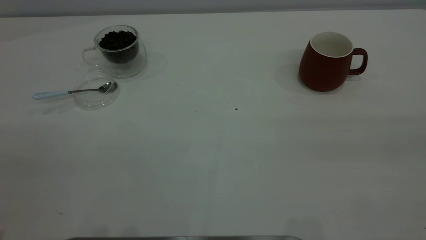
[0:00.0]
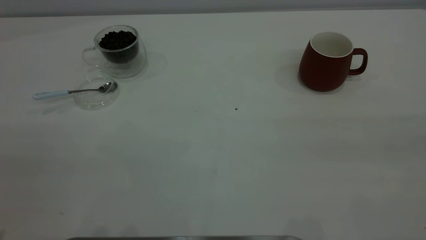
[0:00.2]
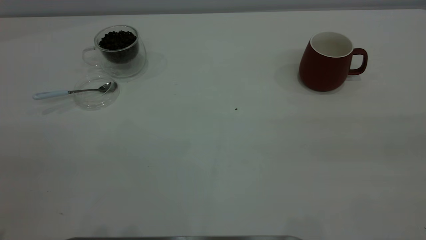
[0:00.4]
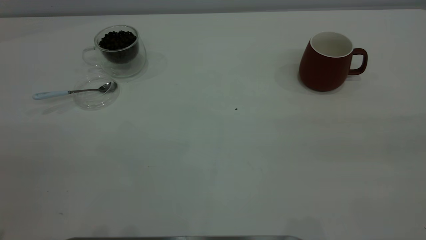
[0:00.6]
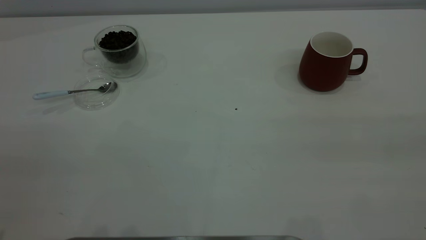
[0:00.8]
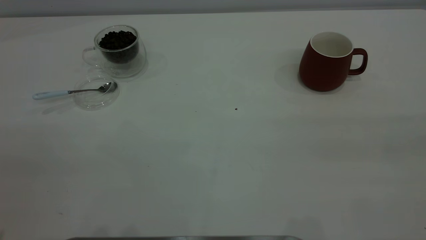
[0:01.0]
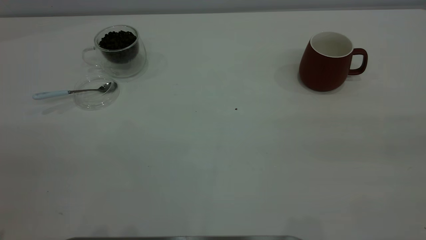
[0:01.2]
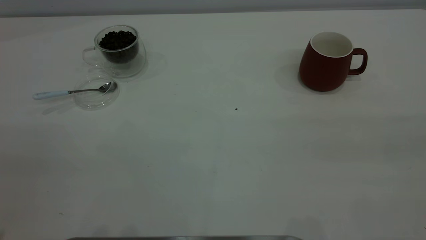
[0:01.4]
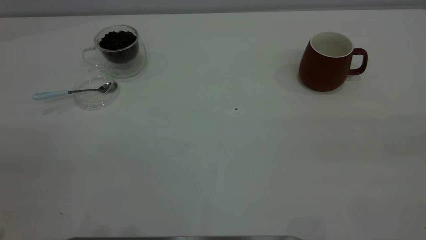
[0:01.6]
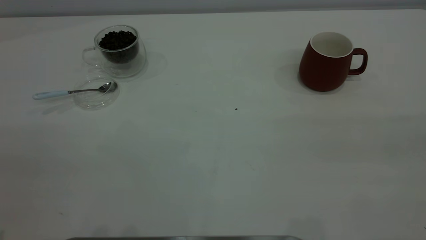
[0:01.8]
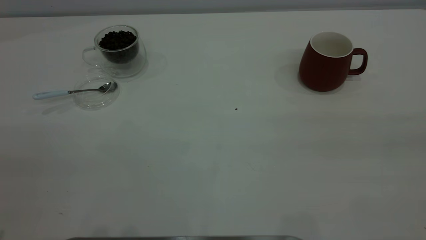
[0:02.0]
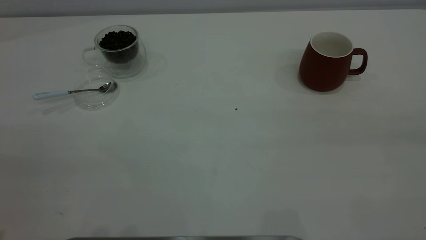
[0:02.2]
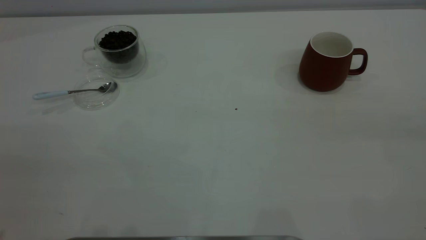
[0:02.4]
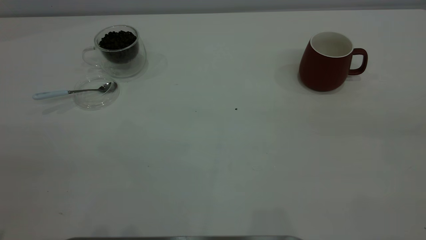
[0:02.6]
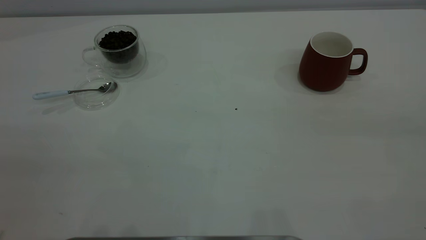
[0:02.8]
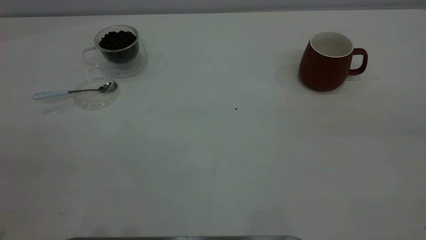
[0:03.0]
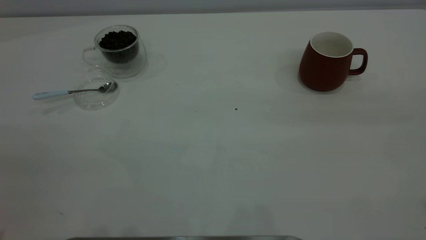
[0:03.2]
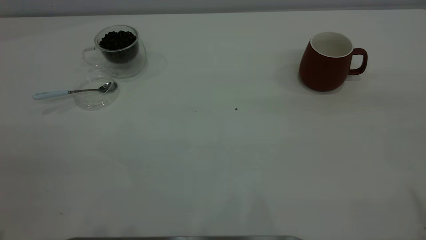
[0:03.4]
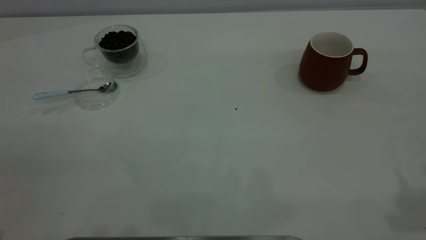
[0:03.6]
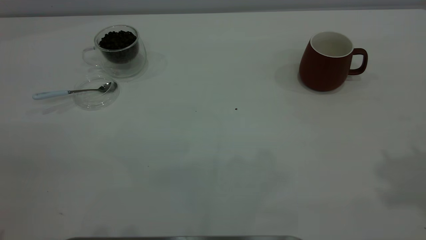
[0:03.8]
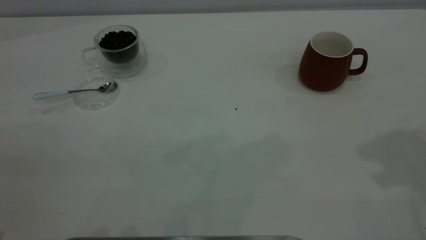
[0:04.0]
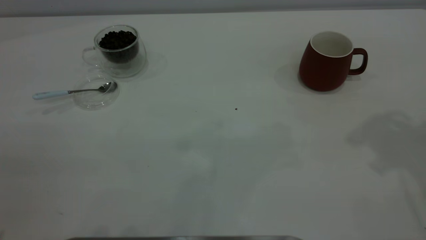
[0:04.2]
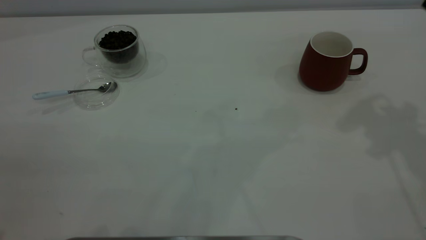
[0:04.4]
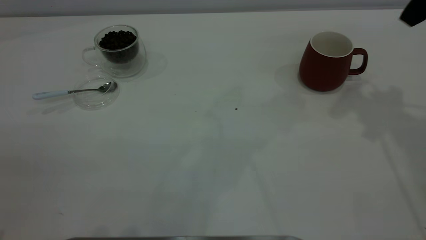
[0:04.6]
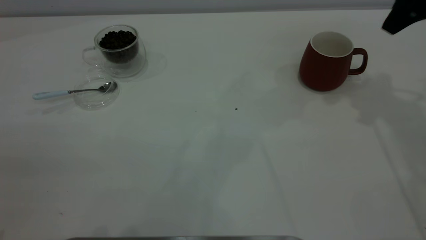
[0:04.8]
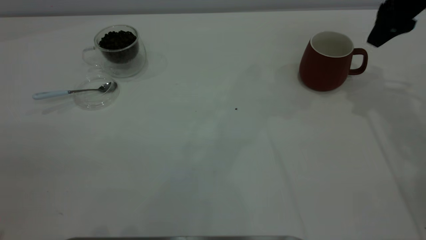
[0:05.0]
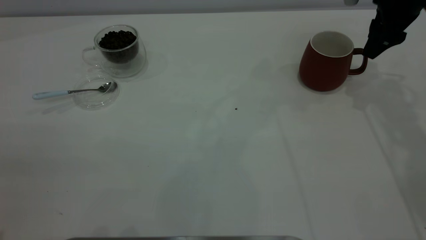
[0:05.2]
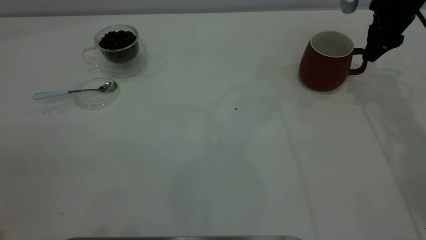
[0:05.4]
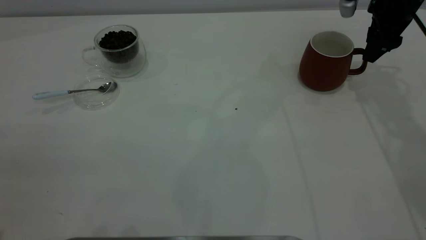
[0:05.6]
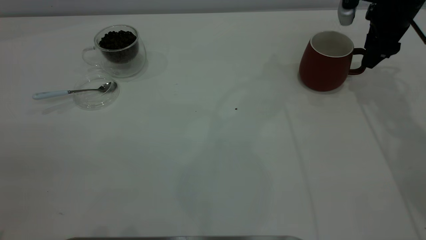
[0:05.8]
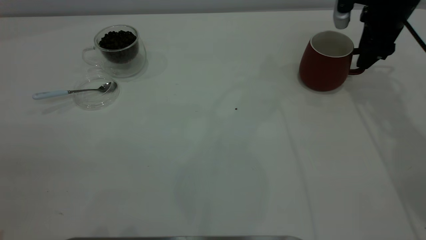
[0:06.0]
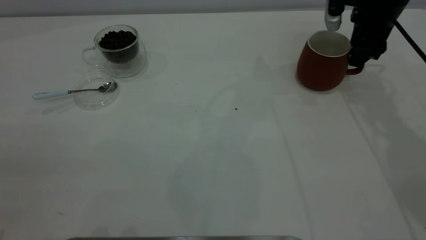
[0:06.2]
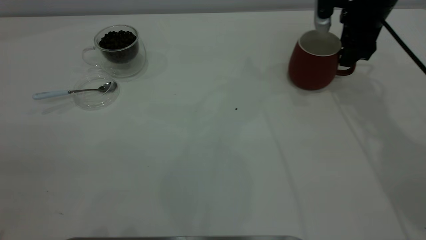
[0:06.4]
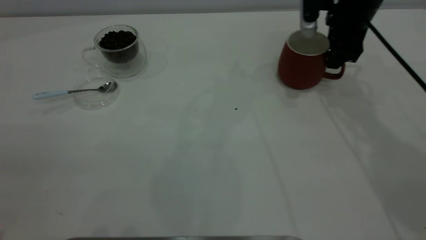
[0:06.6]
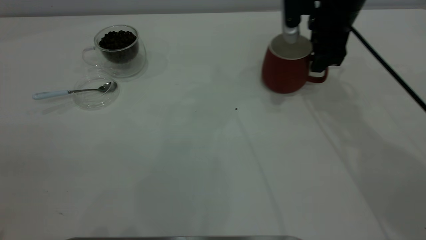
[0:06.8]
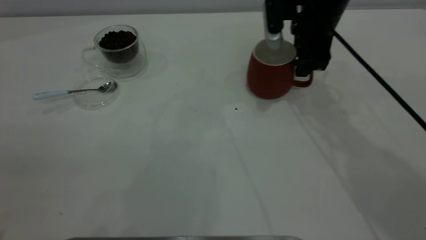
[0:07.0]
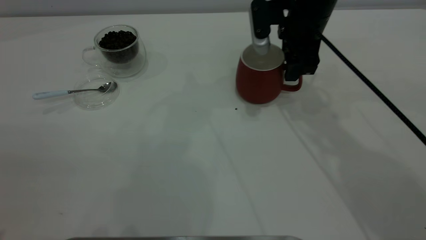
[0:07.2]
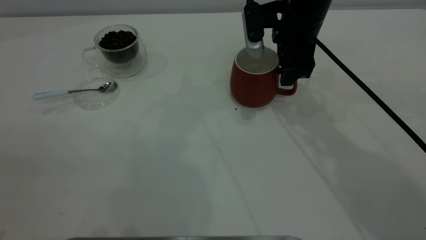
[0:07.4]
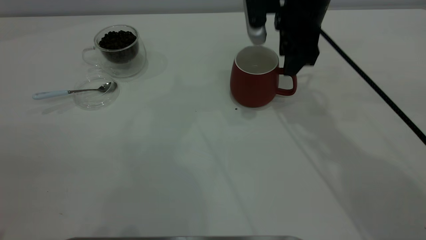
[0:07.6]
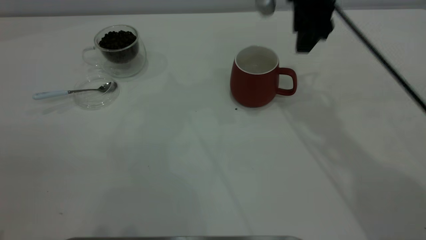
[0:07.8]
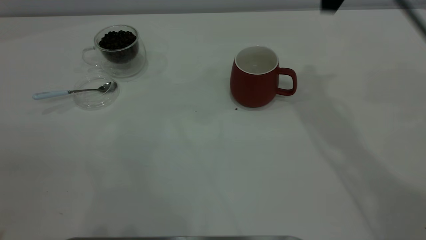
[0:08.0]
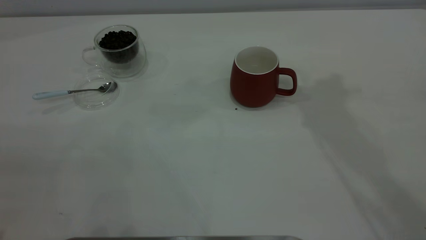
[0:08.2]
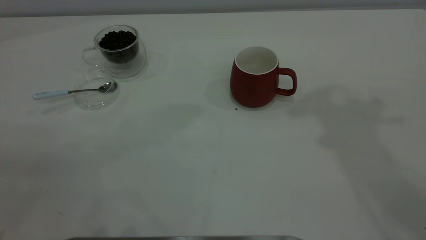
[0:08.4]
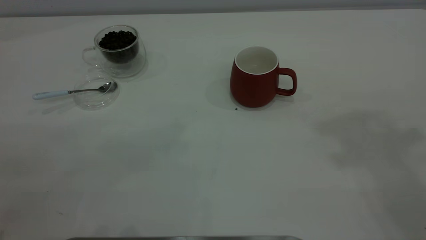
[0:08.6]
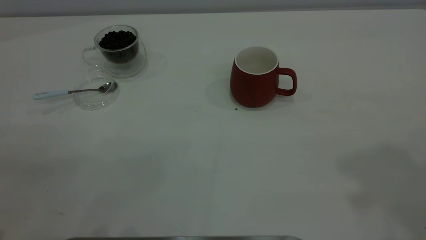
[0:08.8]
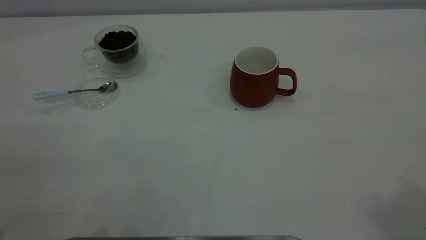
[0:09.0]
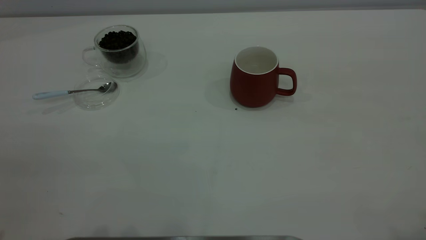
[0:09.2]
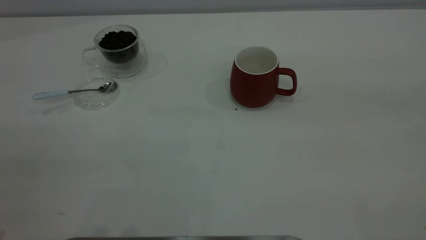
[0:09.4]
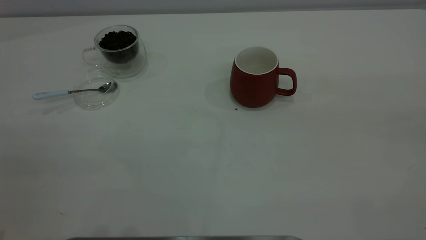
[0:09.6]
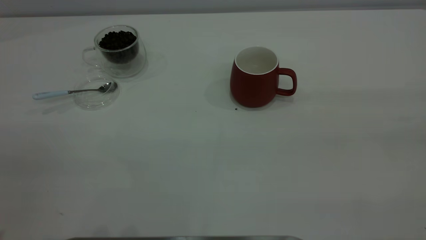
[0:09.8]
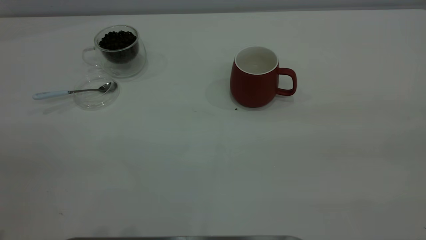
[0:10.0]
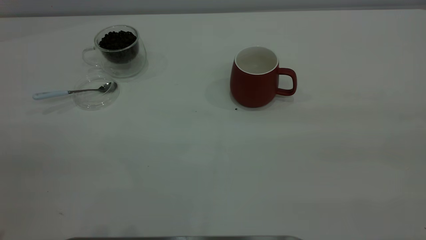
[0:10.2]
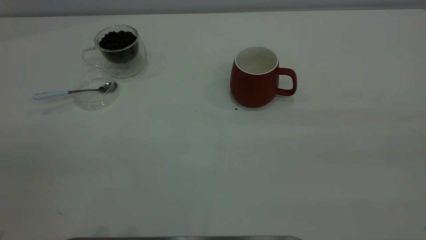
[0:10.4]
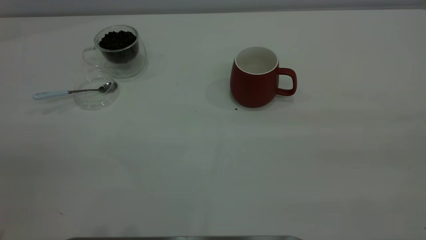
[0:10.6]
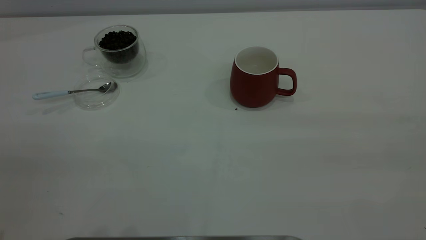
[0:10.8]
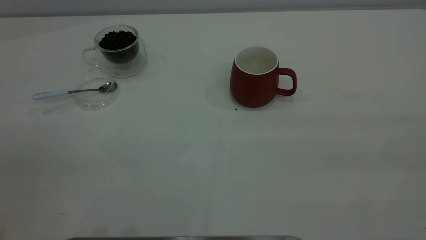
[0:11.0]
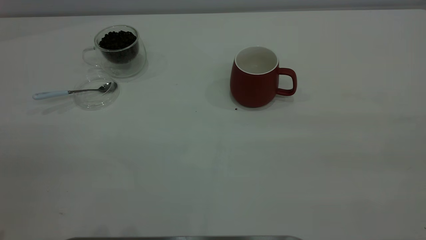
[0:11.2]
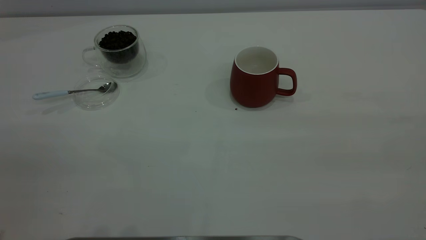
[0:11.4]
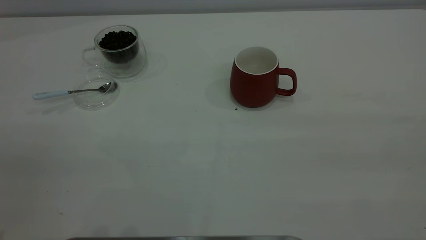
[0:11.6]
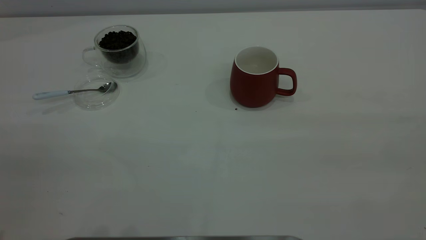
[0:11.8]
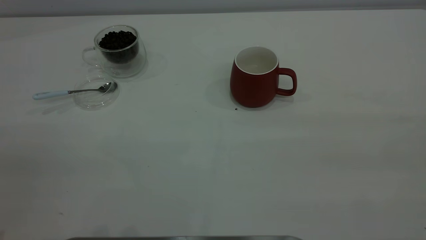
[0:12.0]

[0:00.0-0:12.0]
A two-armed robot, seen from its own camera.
Task of the whole recording: the right gripper place the red cup in the center of the table, the left gripper take the blue spoon from the cup lid and scoop out the coffee beans from the coffee cup and put them into the red cup, the left gripper put the spoon back into the cup lid.
Step, 0.0 to 7.6 s: Move the cup to the center of view.
0.0 to 1.6 s: Neither gripper changes place.
4.4 to 6.0 s: The right gripper moves downward and forward, roughly 20 cm.
6.0 to 7.6 s: The right gripper goes some 15 cm to the left.
7.6 to 9.0 s: The right gripper goes some 50 cm upward and backward.
10.4 to 12.0 s: Both grippers stay about where they are.

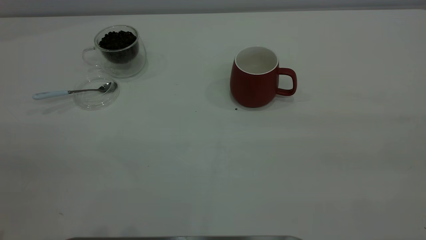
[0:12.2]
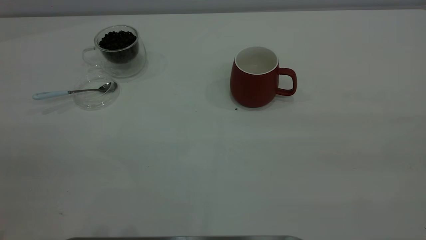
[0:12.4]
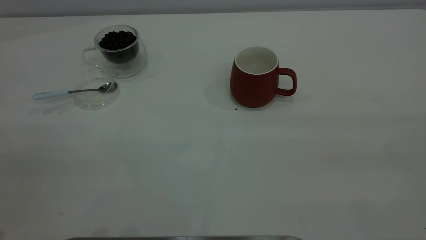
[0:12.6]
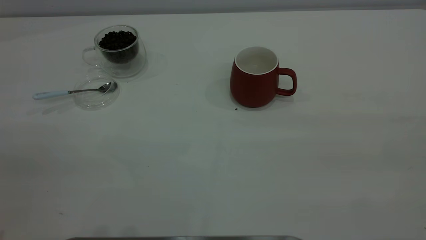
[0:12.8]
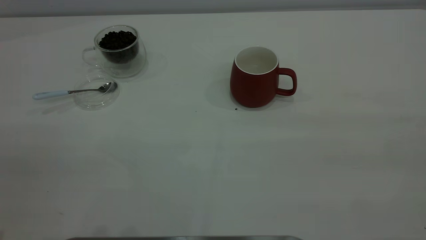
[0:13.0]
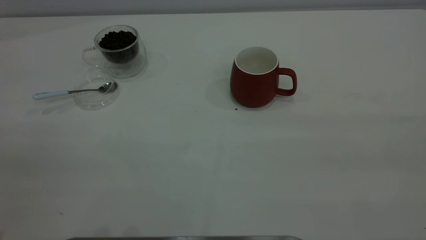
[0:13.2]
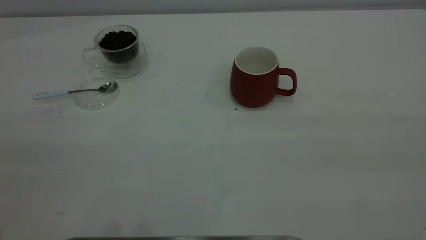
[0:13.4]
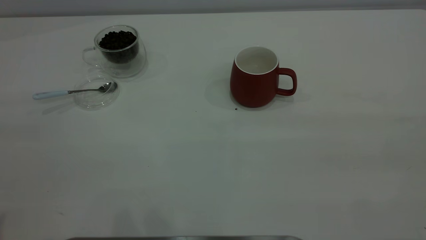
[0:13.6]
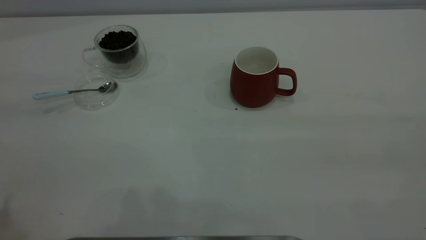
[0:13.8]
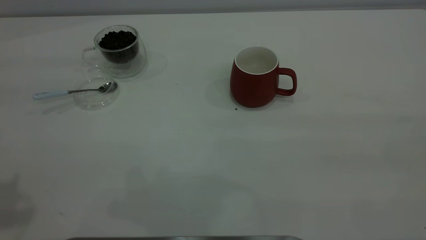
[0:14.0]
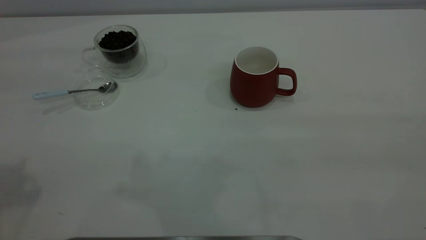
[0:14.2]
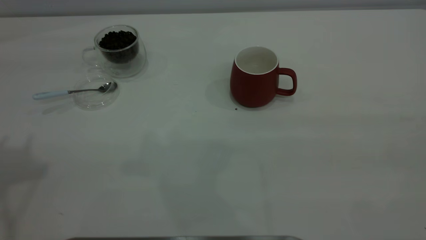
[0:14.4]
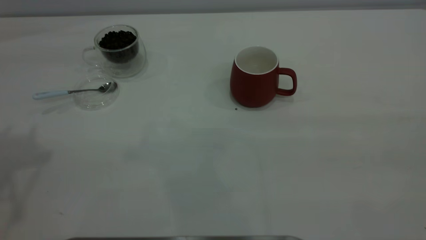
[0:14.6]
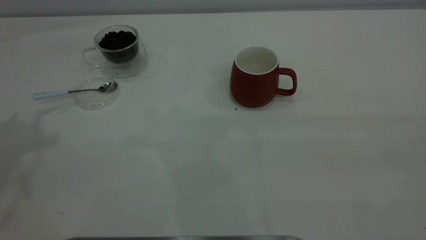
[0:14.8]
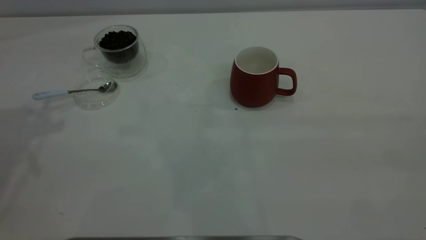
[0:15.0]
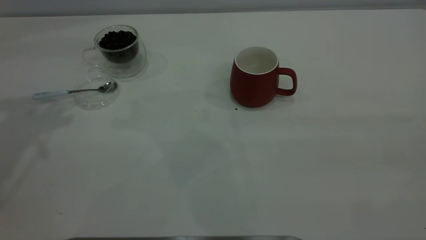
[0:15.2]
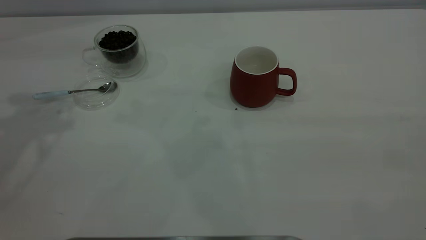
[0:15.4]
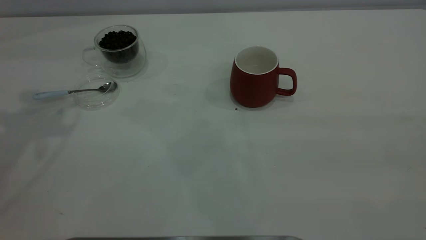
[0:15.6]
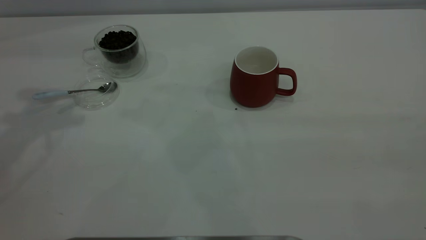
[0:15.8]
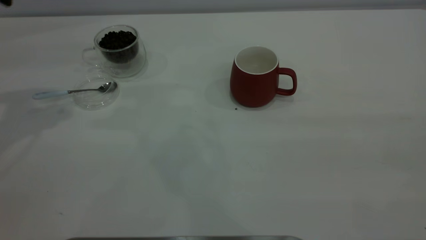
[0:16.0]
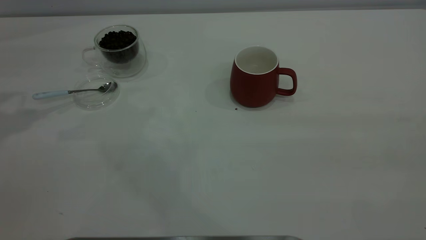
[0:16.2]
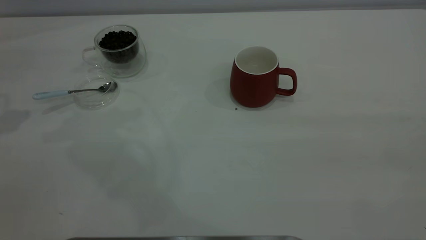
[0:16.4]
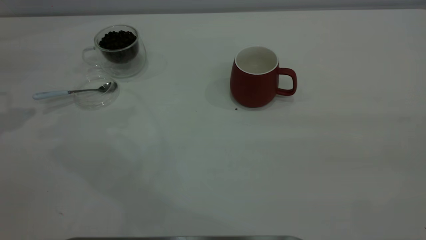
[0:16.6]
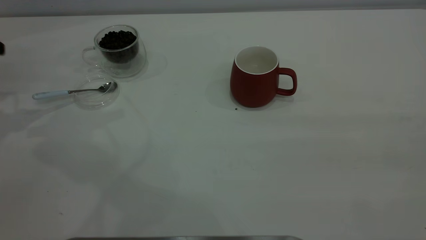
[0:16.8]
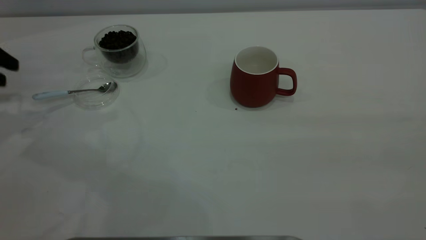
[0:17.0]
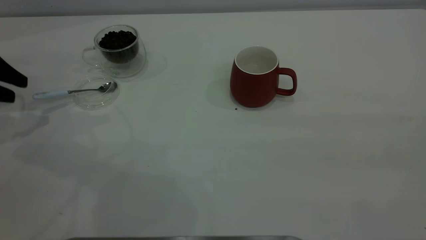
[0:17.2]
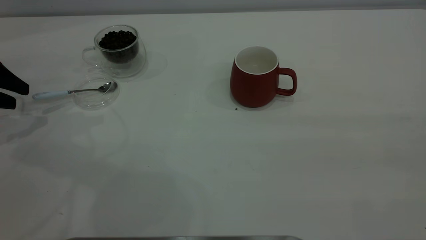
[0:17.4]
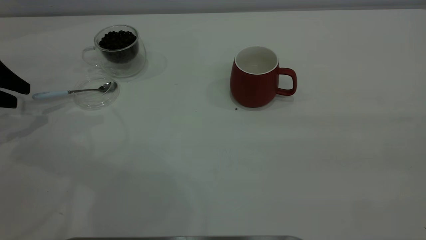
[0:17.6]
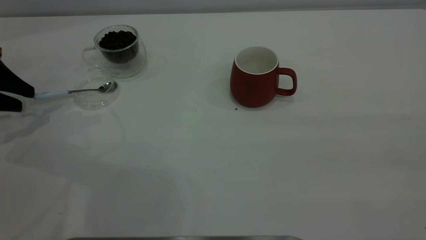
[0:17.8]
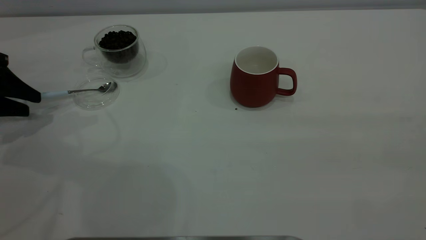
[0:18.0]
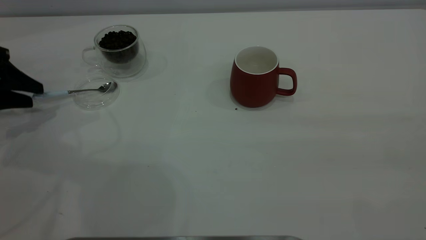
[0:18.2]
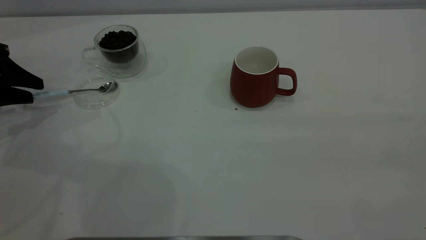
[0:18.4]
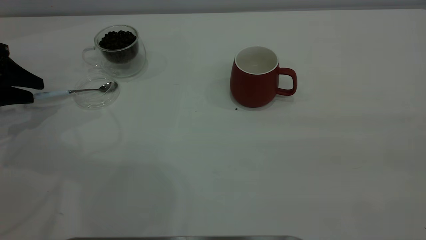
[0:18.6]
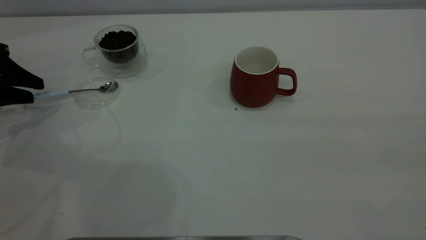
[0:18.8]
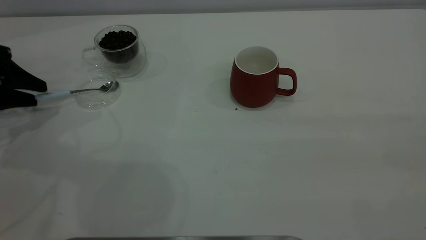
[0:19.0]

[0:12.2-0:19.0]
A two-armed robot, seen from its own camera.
Task of the whole recording: the right gripper place the red cup in the center of the table, the left gripper take the blue spoon from the cup lid and scoop out the coffee beans from the coffee cup and put them into the red cup, the left gripper put the spoon back into the cup lid.
16.2 to 17.6 s: The left gripper moves downward, some 15 cm.
17.6 to 19.0 s: The grippers move only a little.
